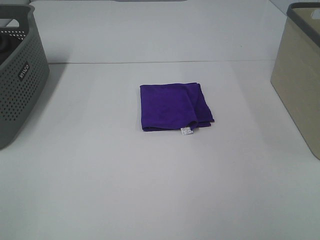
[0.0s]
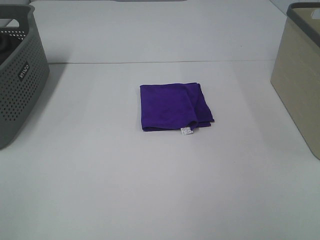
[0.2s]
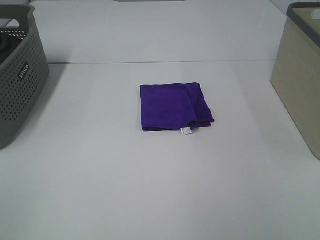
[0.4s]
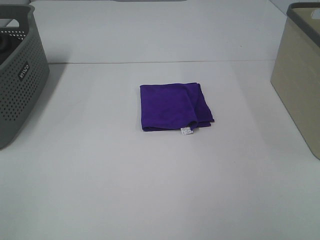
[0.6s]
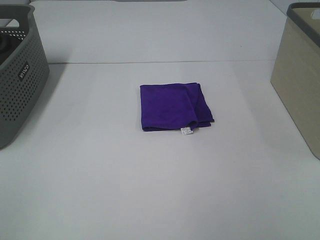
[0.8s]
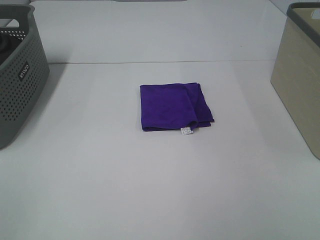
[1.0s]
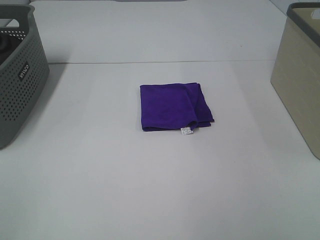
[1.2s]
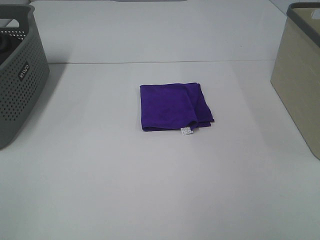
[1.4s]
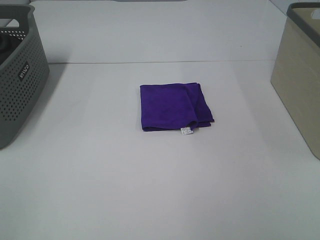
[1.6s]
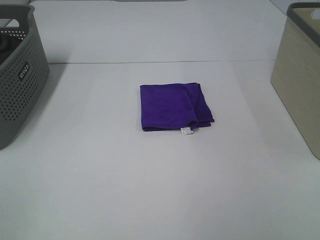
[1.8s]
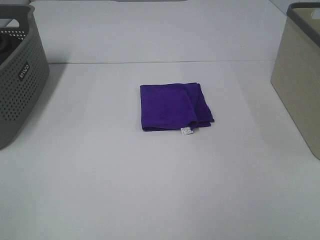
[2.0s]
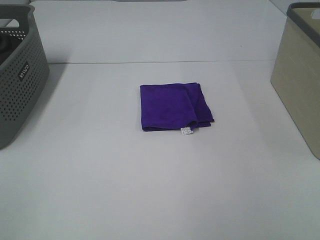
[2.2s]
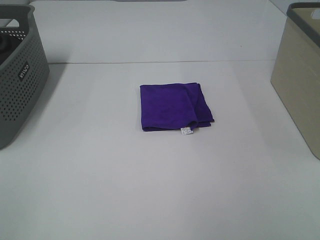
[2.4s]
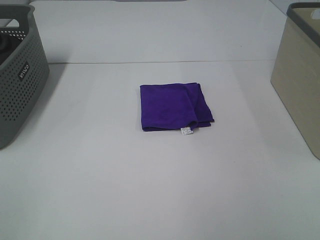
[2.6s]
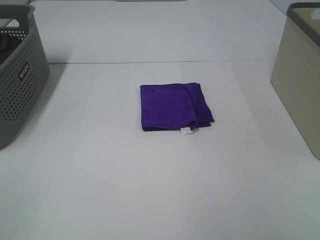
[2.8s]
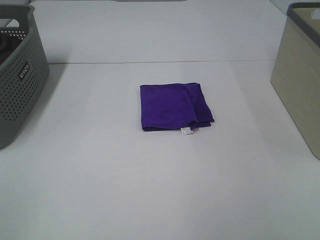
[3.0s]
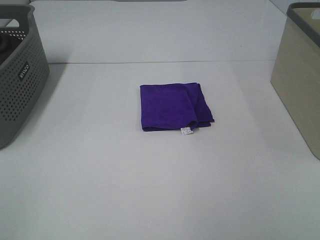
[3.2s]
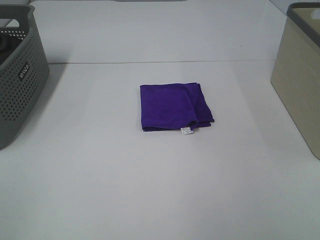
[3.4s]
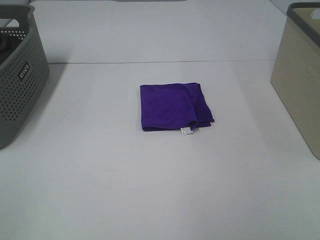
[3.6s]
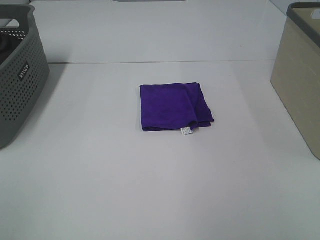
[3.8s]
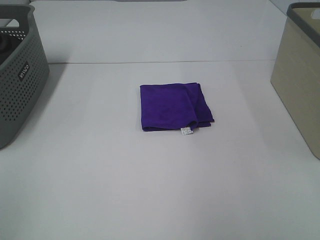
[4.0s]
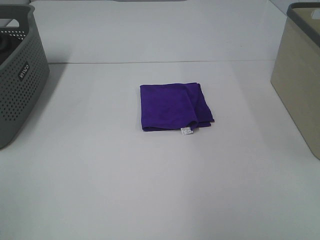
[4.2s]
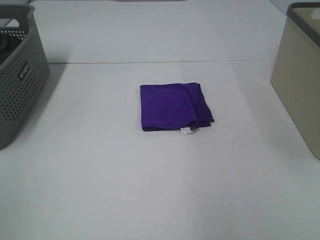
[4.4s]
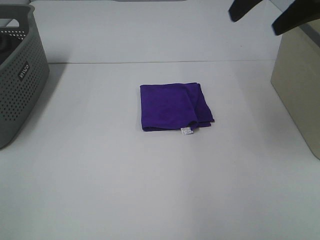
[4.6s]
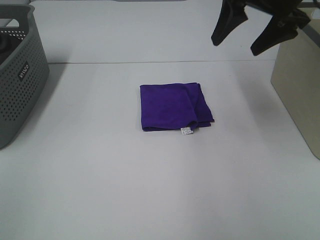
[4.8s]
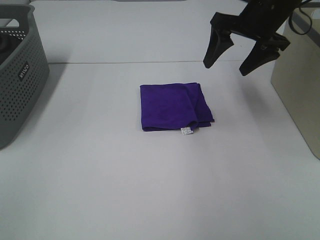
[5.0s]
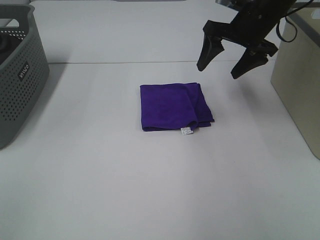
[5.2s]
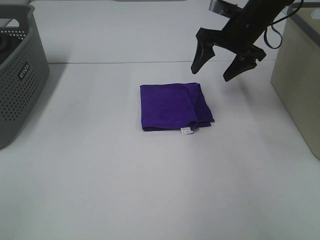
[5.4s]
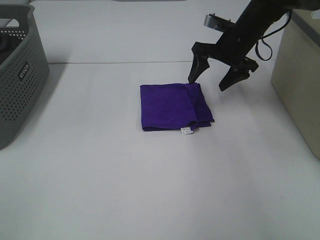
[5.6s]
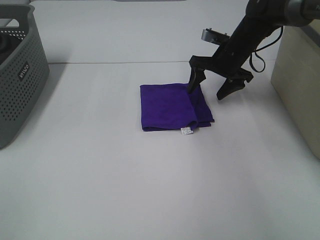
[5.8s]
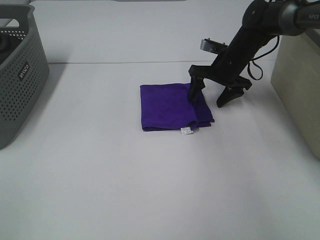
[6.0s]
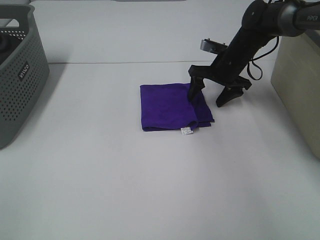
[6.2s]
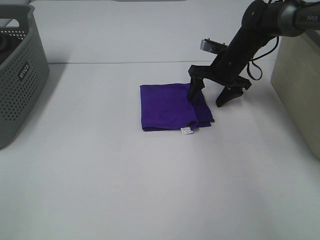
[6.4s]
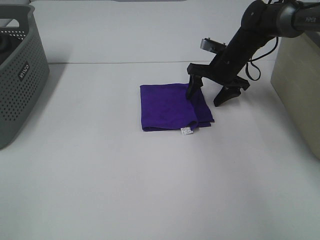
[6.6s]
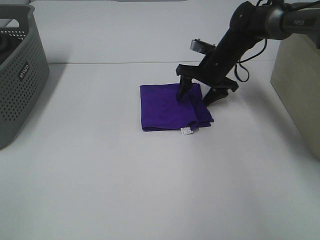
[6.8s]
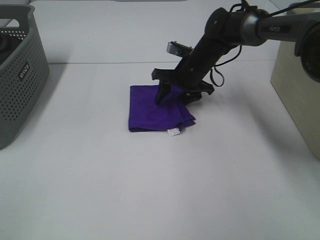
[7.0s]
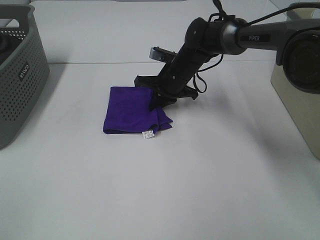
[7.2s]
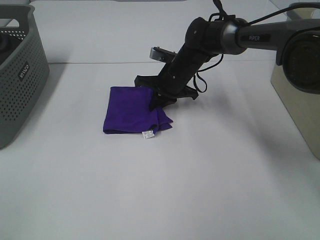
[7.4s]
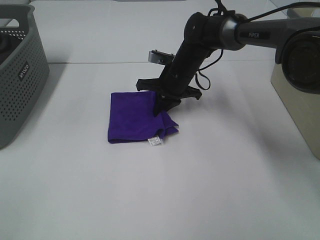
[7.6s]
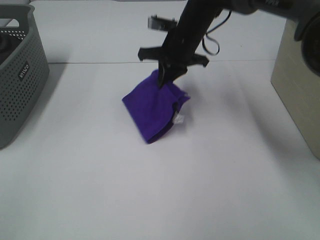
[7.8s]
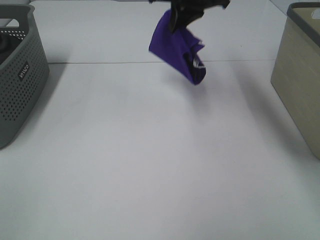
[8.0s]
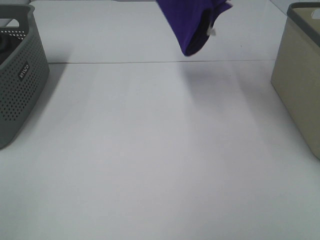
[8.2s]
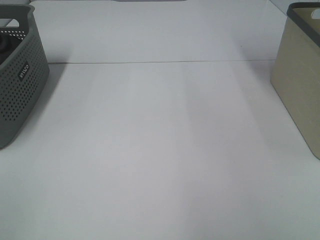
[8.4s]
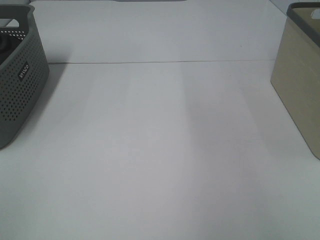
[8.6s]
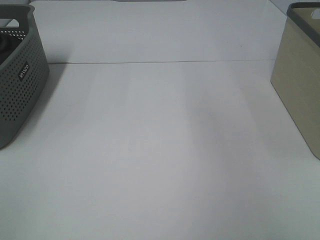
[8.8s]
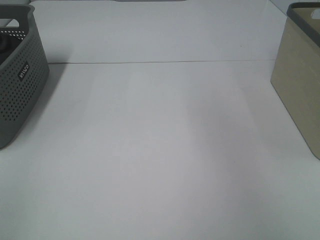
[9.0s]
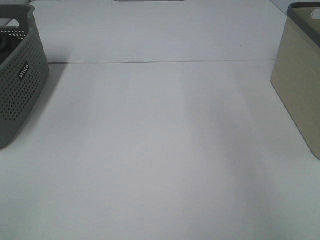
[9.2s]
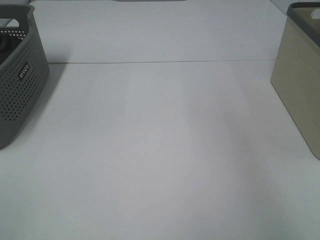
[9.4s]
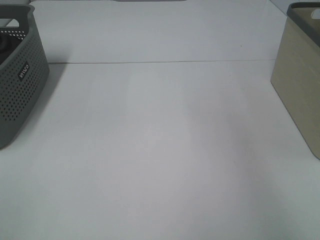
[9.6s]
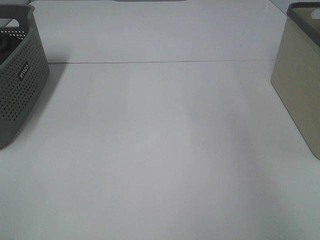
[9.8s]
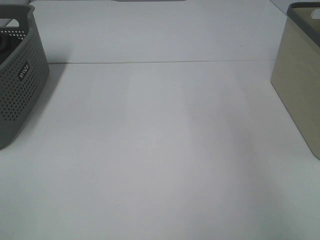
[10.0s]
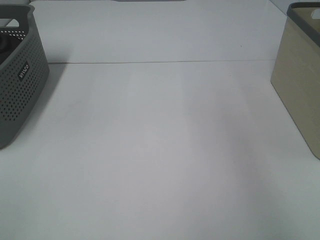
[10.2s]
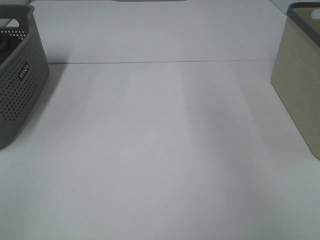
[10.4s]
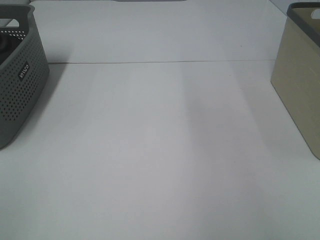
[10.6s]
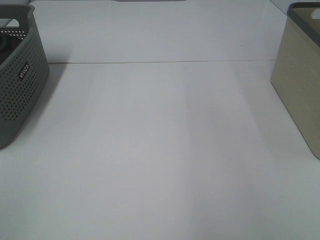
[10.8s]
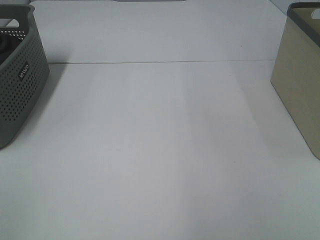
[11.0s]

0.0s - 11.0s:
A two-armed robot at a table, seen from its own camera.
Step, 0.0s - 7.2s: Right hand: grab the folded purple towel.
Step, 7.4s - 10.0s: Right hand: place the purple towel in right basket.
0.0s - 3.2s: The two grippers keep their place.
3.2s - 4.8s: The right gripper shifts roughly 40 cm forward.
4.8s - 6.2s: The right gripper is displaced downward and forward by roughly 20 cm.
6.2s - 7.8s: The right gripper shifts approximately 15 cm to the left and upward, and closes its fingers.
7.8s - 9.4s: The right gripper goes roughly 30 cm to the right.

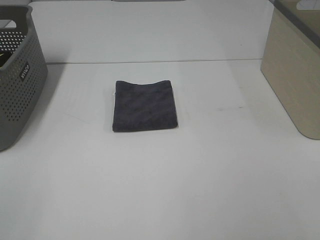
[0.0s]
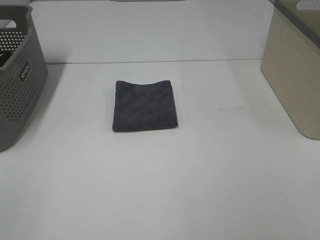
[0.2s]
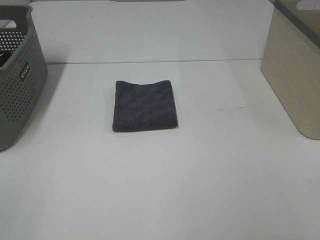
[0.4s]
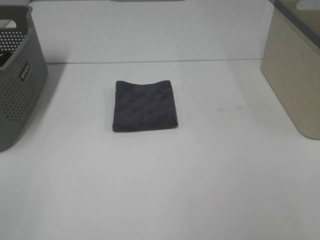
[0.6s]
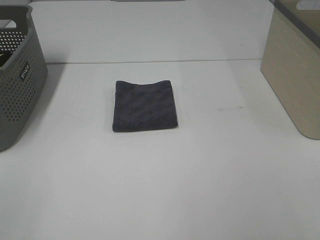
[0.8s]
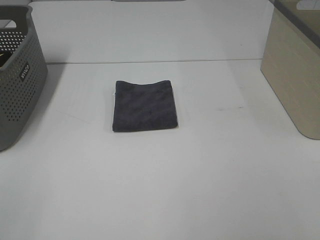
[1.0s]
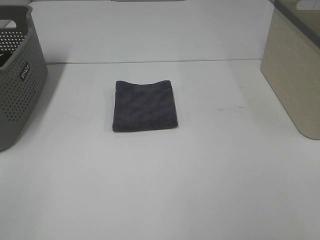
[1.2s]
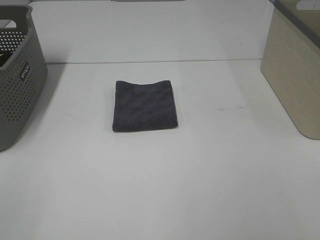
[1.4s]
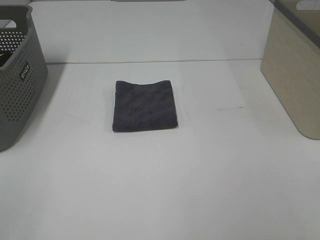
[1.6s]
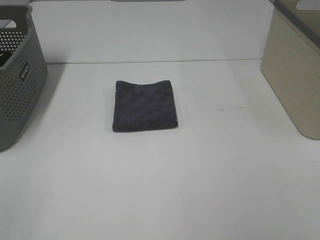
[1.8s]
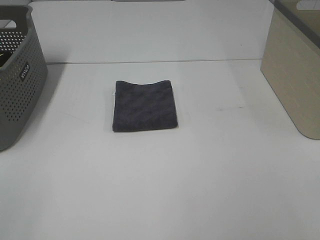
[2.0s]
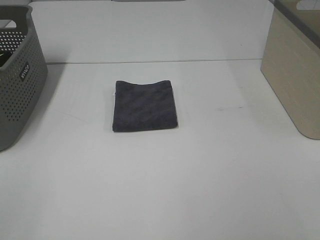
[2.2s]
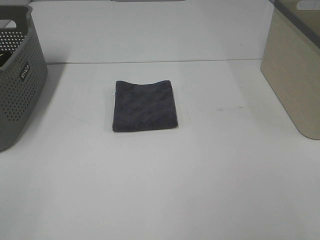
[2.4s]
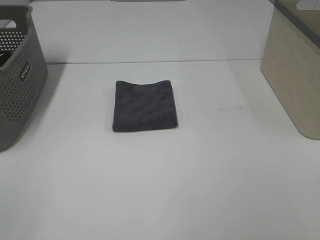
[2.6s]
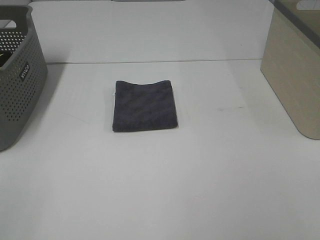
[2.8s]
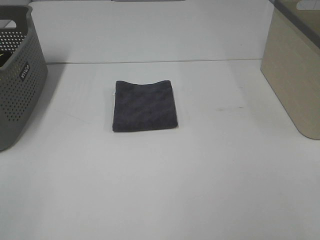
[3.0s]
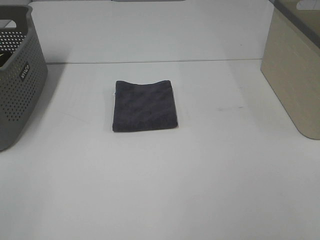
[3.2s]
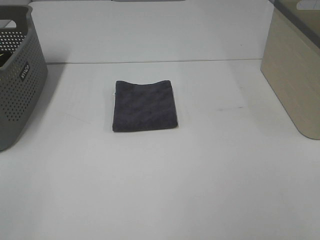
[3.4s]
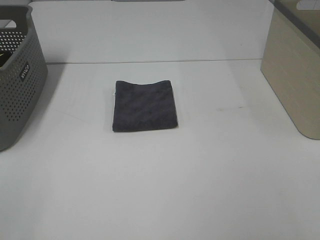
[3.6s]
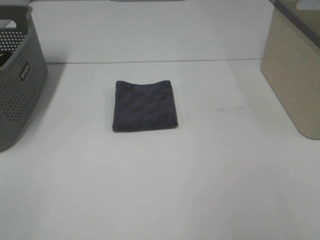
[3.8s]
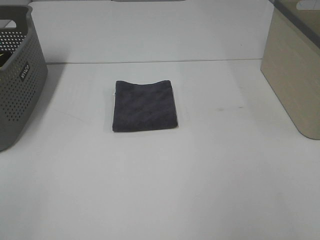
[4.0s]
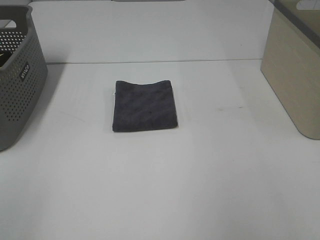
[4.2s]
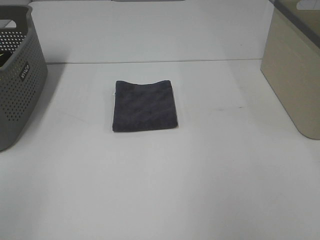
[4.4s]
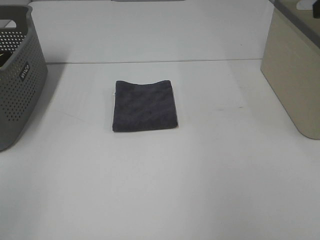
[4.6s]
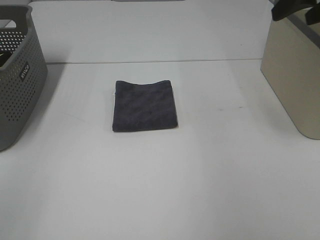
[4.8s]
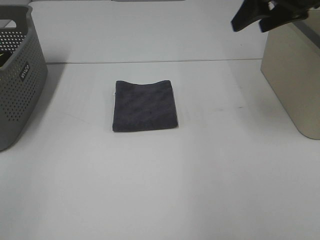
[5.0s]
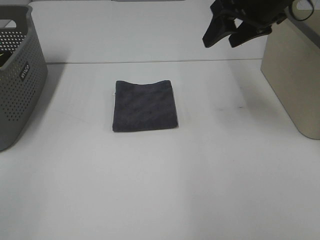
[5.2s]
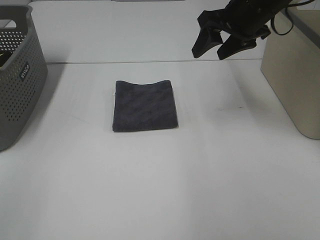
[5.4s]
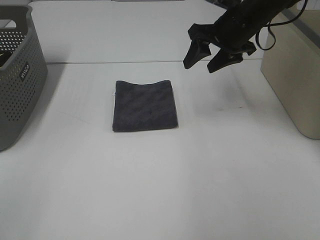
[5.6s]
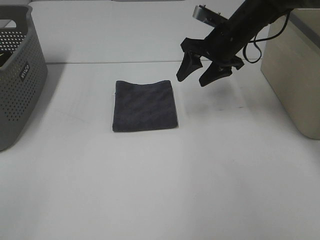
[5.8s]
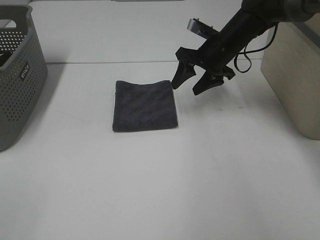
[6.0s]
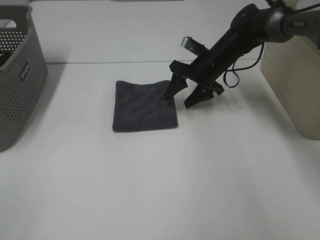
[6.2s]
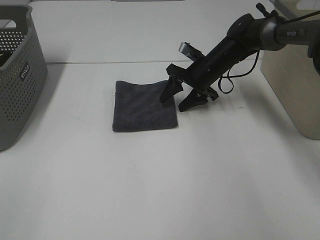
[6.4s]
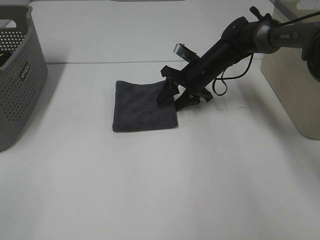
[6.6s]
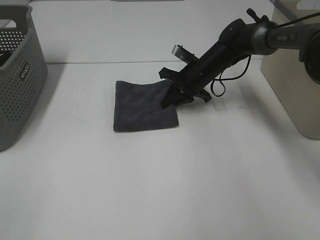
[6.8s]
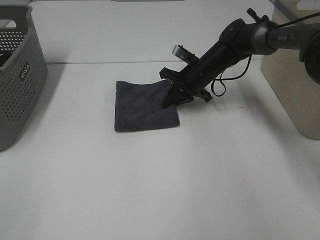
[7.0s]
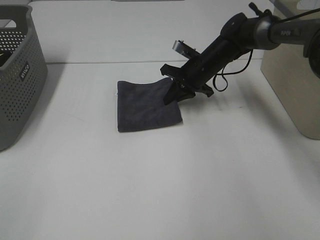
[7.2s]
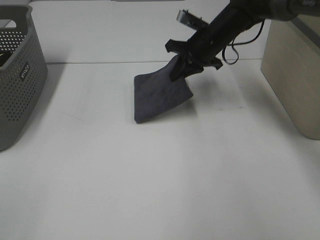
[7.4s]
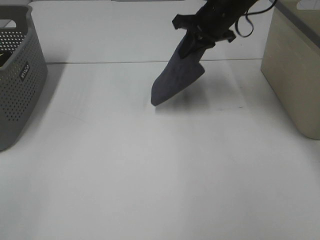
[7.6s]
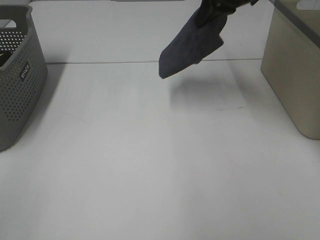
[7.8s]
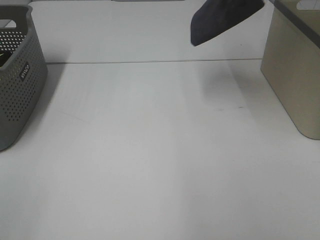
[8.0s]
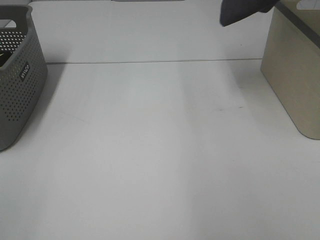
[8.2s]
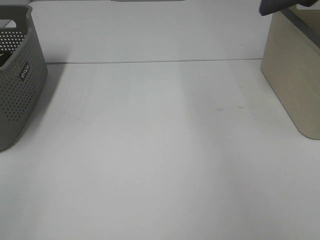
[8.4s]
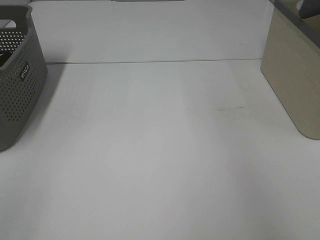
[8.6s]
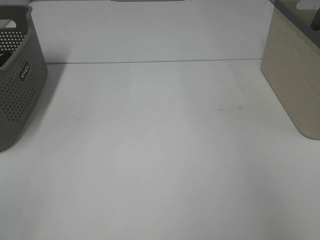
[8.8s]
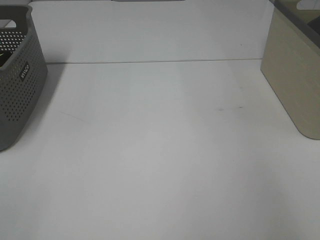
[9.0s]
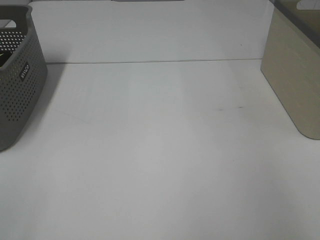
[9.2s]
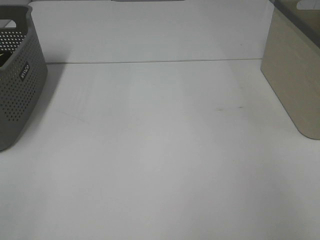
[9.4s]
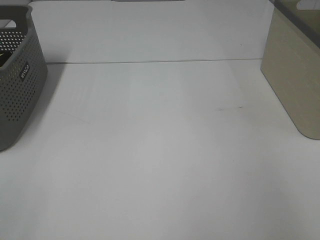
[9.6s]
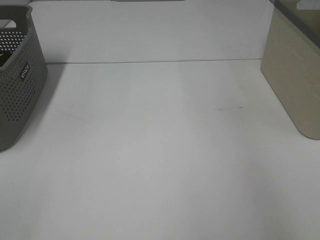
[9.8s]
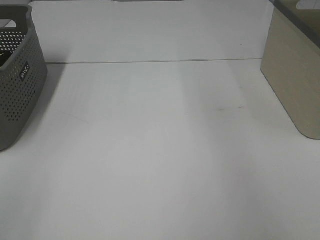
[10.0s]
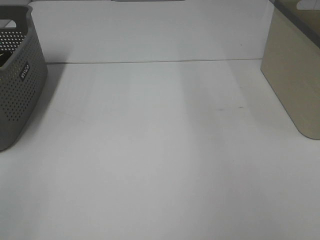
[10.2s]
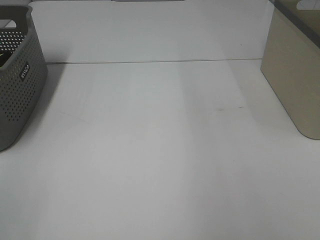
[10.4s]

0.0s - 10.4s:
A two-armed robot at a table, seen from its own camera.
Step, 0.0s - 6.8s: Right hand: grab the folded grey towel.
Step, 7.0s - 9.6s: Right hand: place the grey towel in right basket.
0.0s - 3.0s: The two grippers keep their place.
4.4s - 6.0s: The right gripper goes roughly 35 cm forward, downward and to the left.
6.0s - 7.4s: The right gripper goes downward and returns, about 5 cm each way, and closes its fingers.
7.4s - 9.0s: The right gripper heads to the right and upward, covering some 35 cm.

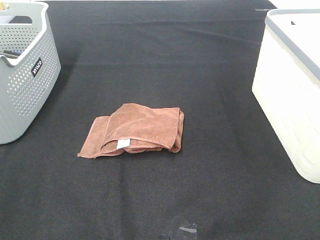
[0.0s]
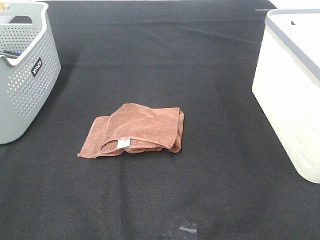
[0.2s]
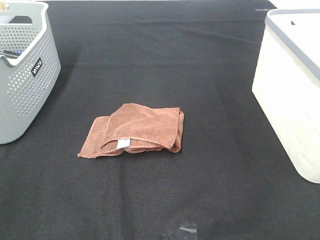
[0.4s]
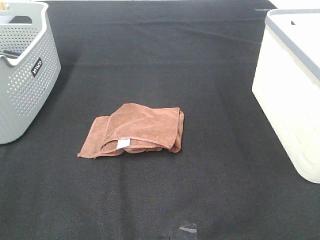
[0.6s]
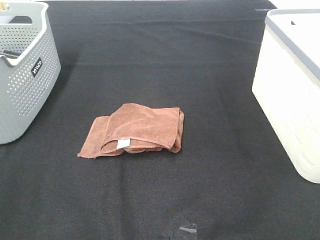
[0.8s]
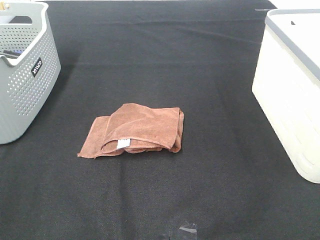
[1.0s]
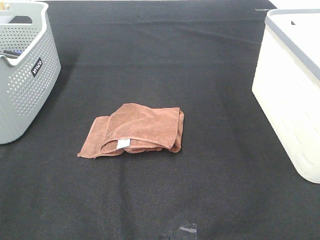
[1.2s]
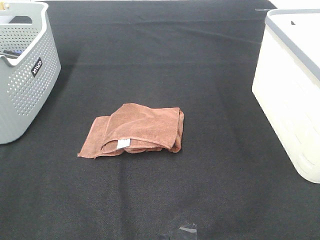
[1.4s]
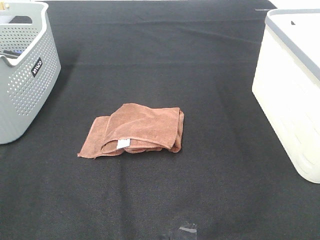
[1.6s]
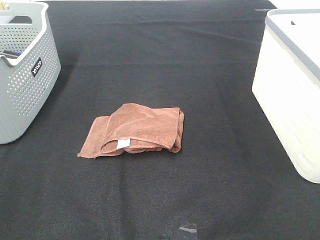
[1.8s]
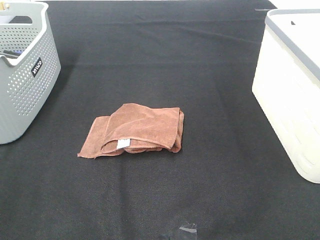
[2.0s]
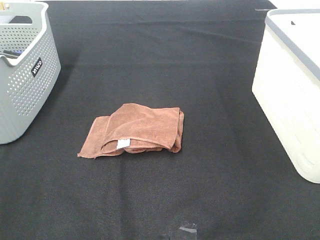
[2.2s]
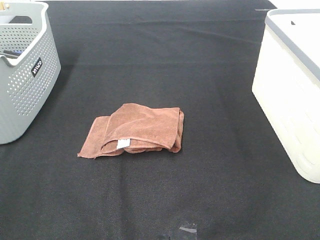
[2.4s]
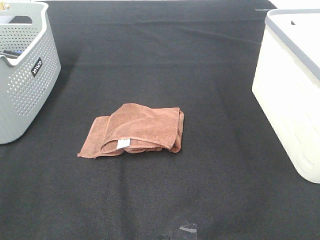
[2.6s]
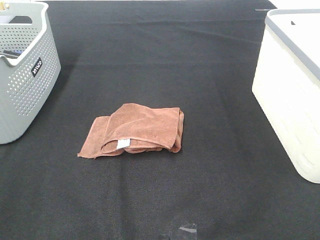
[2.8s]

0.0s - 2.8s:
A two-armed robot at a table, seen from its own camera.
0.0s - 2.8s: Neither gripper changes place.
